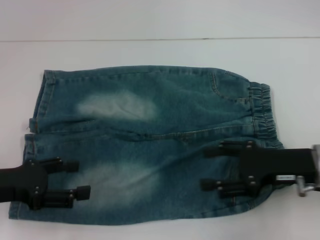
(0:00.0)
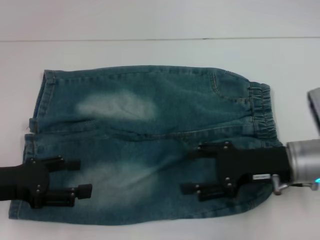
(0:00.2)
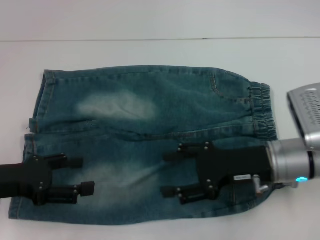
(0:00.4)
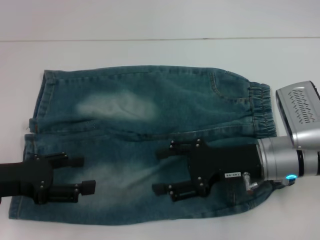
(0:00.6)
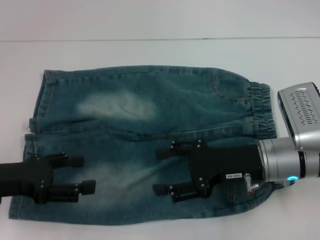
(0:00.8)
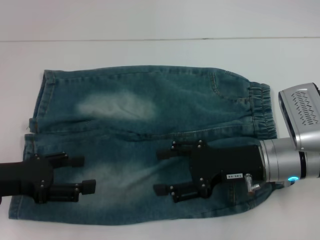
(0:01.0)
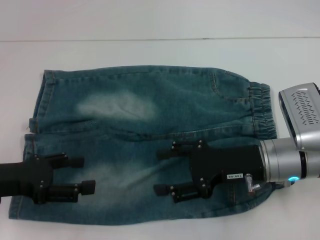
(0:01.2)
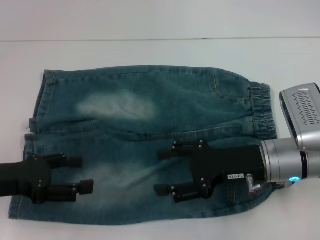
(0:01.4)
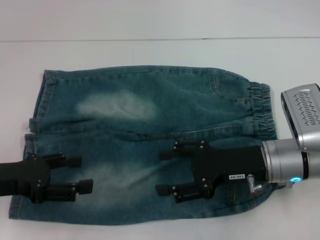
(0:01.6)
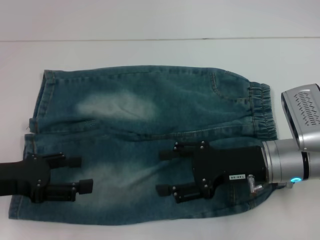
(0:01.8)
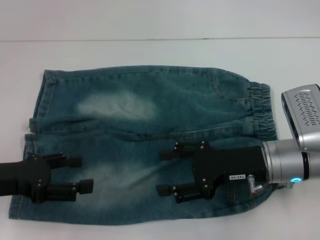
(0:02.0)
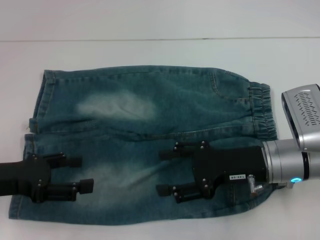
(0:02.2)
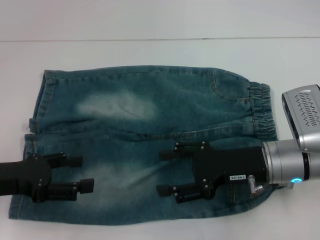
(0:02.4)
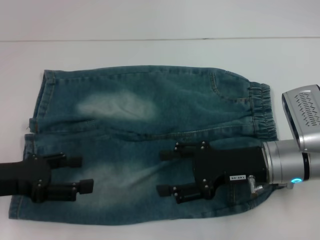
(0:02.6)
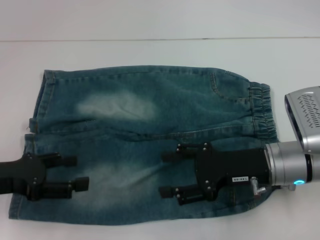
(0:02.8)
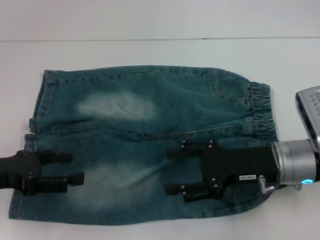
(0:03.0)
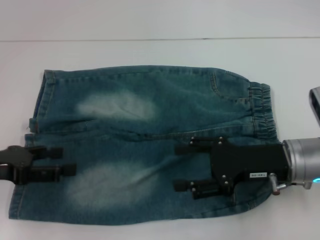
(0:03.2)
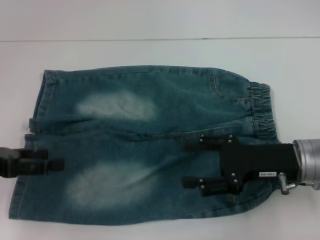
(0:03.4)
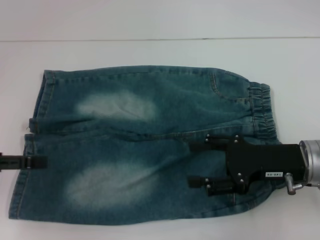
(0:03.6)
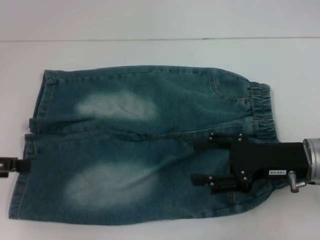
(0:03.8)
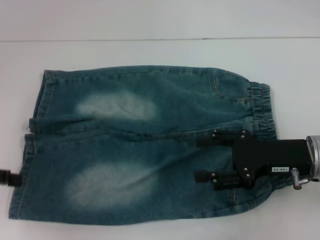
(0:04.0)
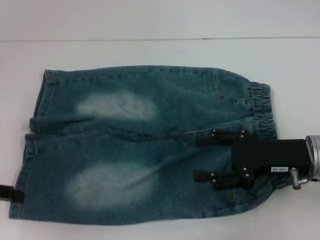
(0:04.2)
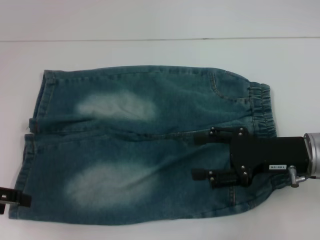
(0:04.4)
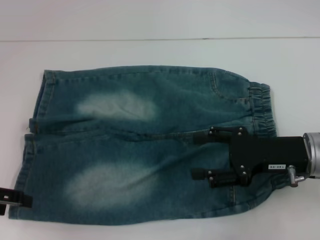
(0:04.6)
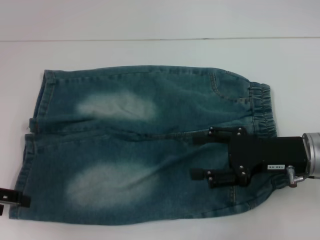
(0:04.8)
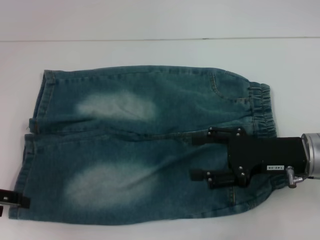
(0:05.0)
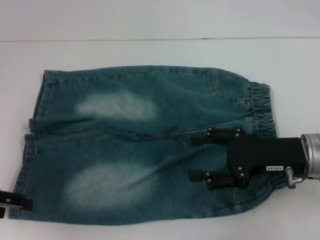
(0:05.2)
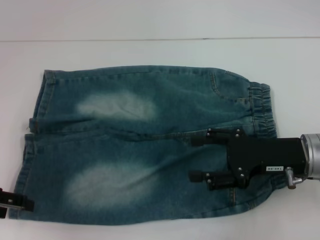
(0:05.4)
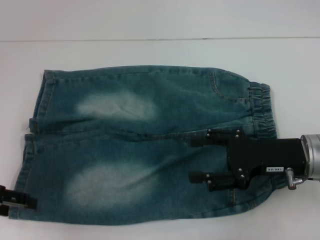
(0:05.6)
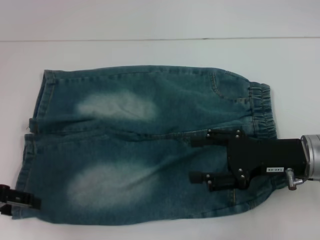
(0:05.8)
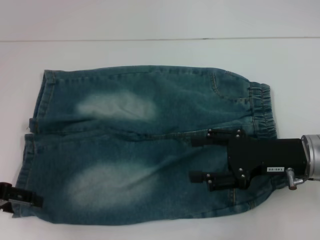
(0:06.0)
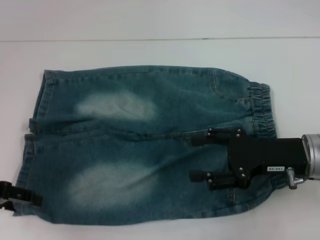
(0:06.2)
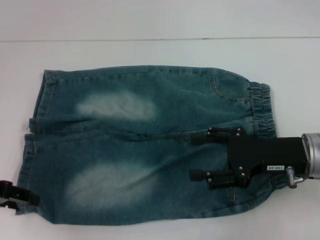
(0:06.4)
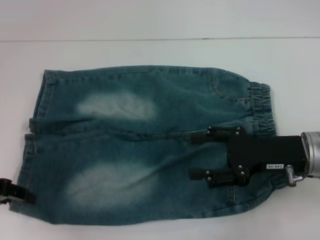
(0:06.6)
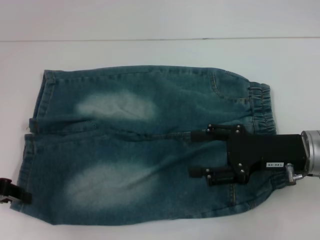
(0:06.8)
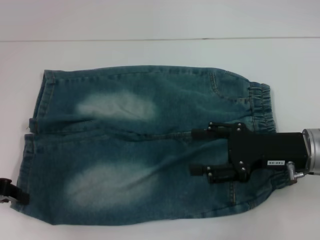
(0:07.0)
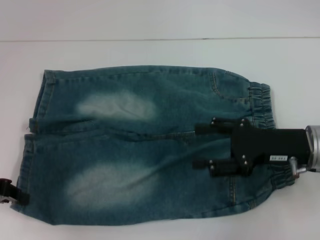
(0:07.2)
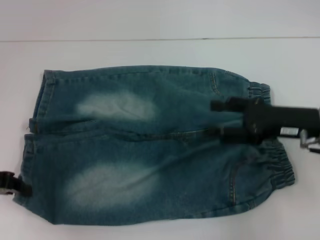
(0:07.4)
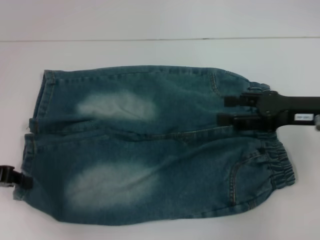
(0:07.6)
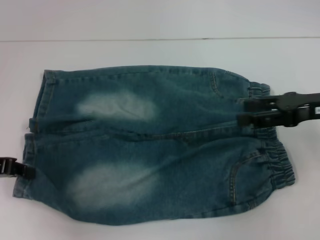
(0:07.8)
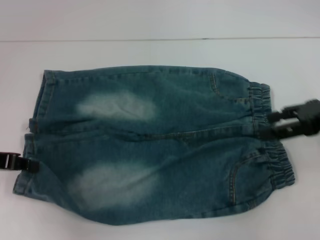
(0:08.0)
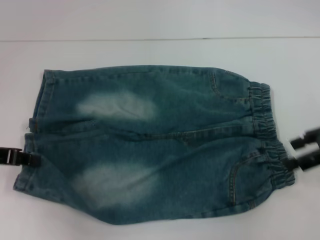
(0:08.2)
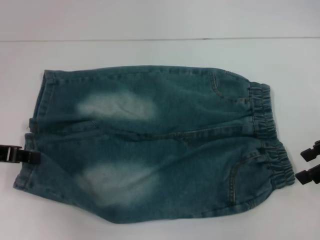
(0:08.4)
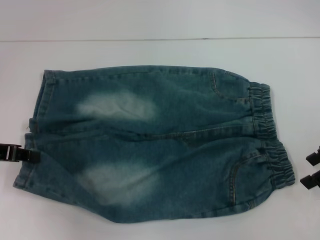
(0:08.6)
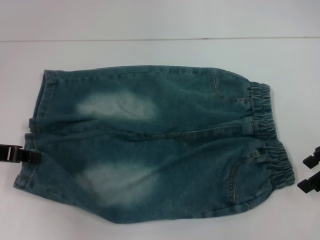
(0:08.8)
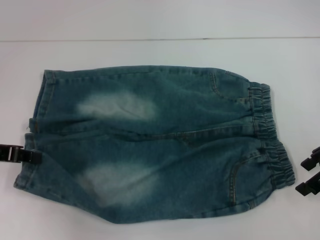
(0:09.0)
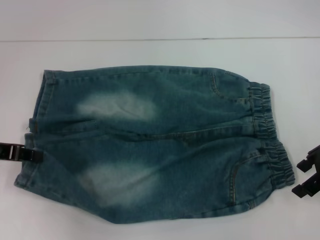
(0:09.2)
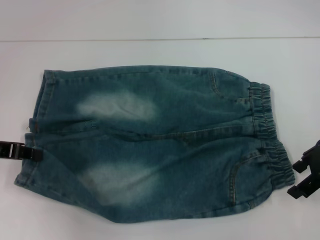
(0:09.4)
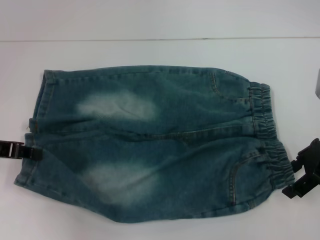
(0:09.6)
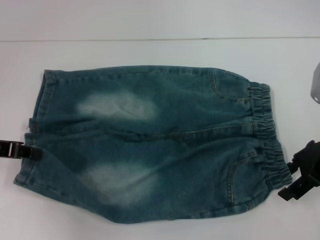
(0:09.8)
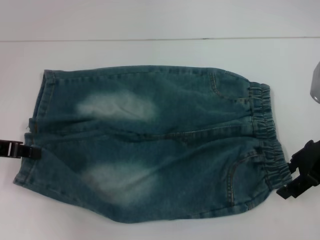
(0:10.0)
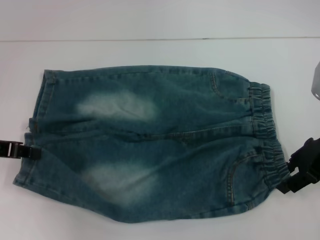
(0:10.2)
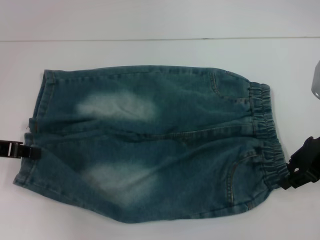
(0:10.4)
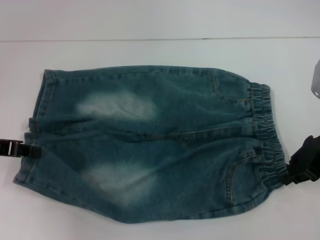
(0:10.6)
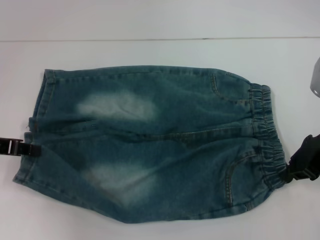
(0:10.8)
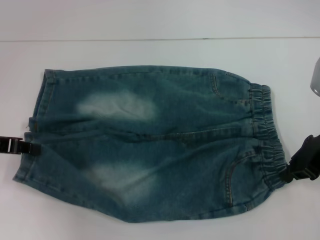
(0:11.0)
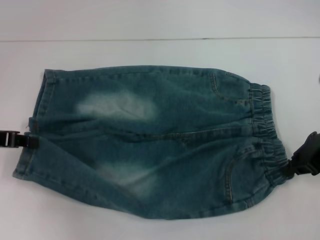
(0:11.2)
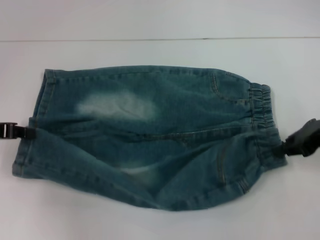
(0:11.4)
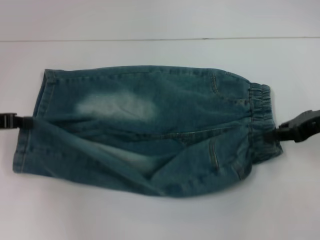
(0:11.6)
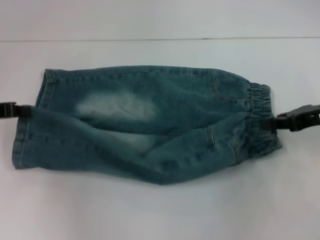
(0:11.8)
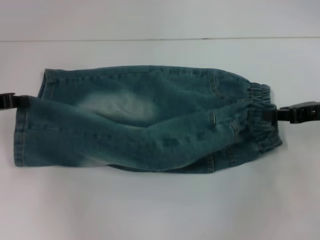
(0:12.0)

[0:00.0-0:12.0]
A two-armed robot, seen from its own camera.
Step, 0:00.0 to 0:07.0: Grab the lower left pant leg with your left hand.
Step, 0:07.2 to 0:10.8: Hold the lower right waistband with your right hand.
0:00.0 to 0:01.6: The right gripper moves to the left, some 5 cm.
0:01.6 to 0:03.0: Both grippers stay put.
0:03.0 to 0:04.4: The left gripper changes place by approximately 5 cm.
0:04.4 to 0:06.0: The grippers stay close to where they were, moving slightly.
0:06.0 to 0:07.6: The left gripper closes its fingers; the right gripper changes place by about 5 cm.
0:09.0 to 0:10.4: The grippers move only a little.
0:10.4 to 0:12.0: The right gripper changes place by about 5 cm, and closes.

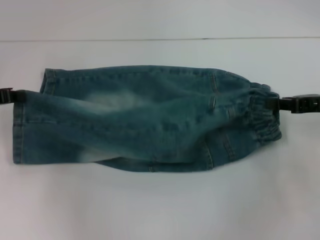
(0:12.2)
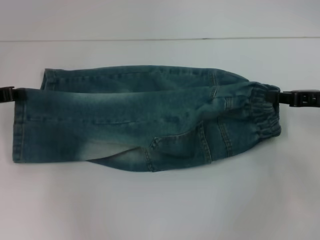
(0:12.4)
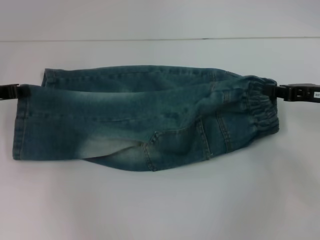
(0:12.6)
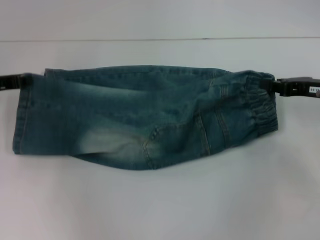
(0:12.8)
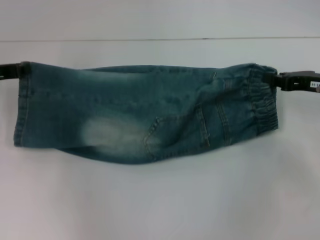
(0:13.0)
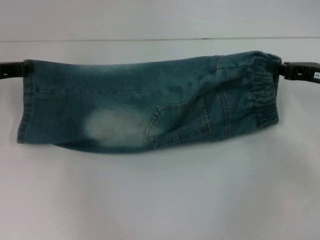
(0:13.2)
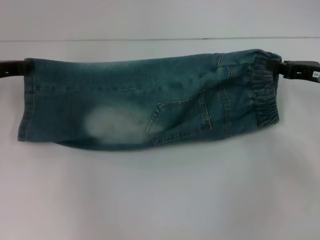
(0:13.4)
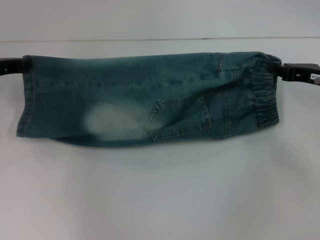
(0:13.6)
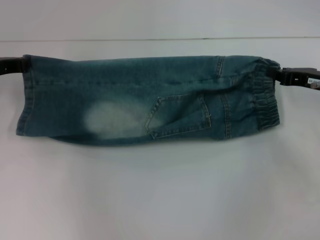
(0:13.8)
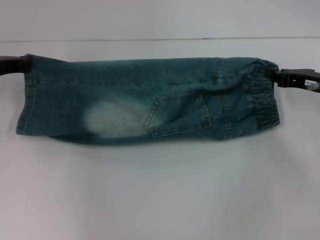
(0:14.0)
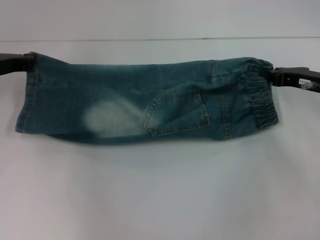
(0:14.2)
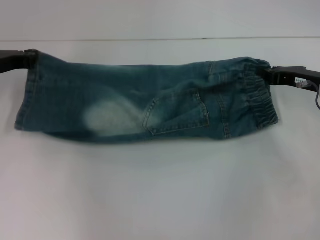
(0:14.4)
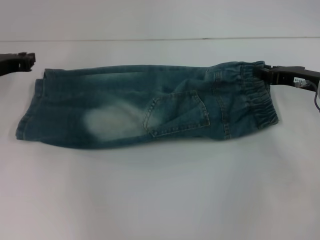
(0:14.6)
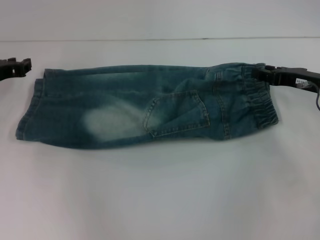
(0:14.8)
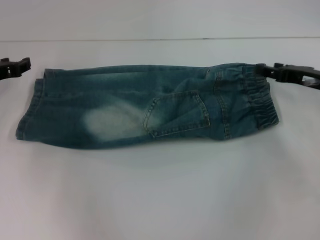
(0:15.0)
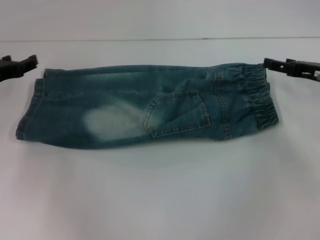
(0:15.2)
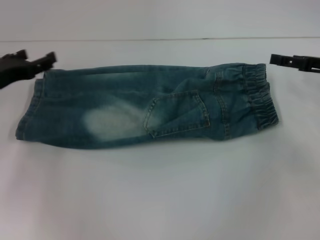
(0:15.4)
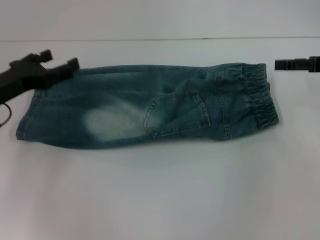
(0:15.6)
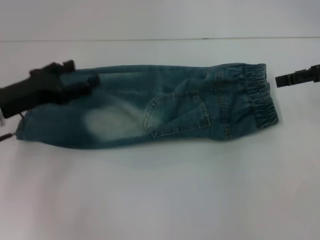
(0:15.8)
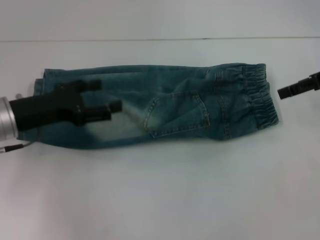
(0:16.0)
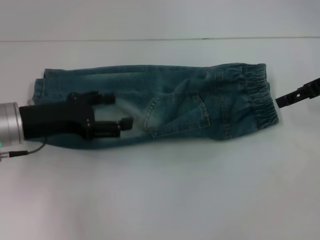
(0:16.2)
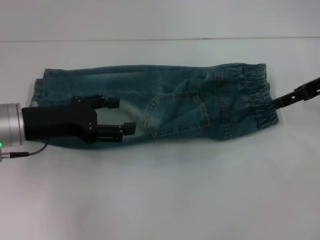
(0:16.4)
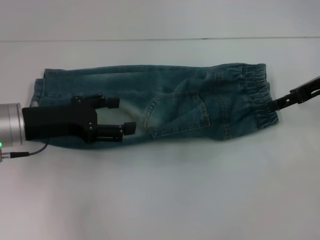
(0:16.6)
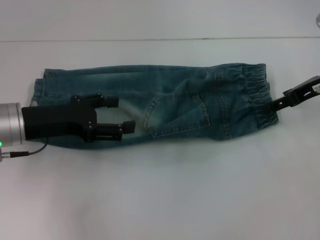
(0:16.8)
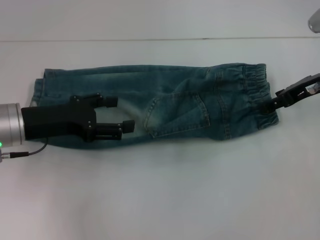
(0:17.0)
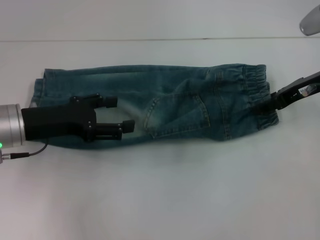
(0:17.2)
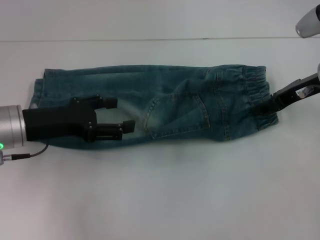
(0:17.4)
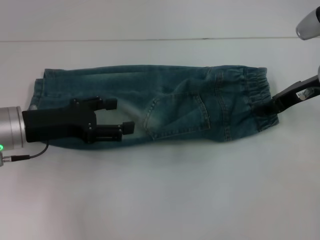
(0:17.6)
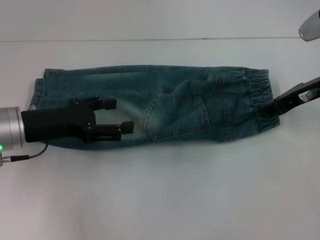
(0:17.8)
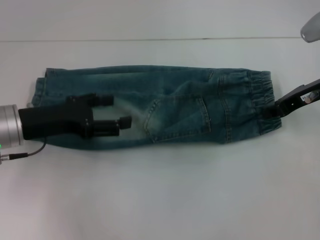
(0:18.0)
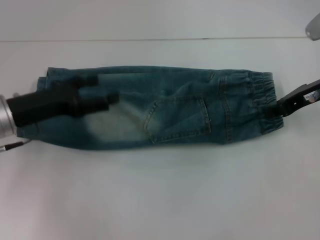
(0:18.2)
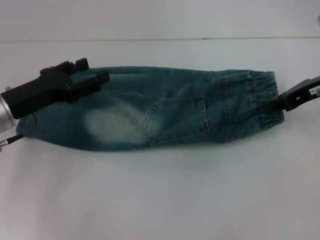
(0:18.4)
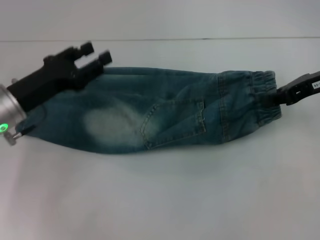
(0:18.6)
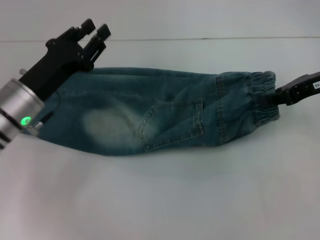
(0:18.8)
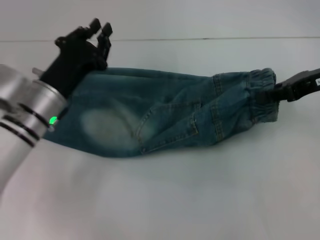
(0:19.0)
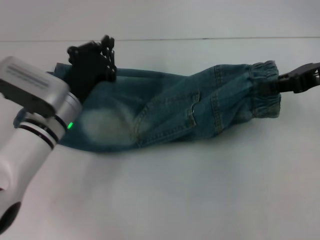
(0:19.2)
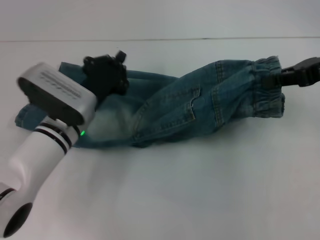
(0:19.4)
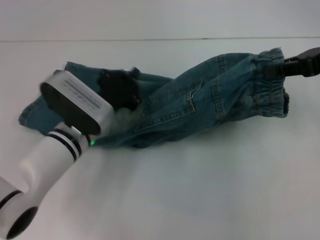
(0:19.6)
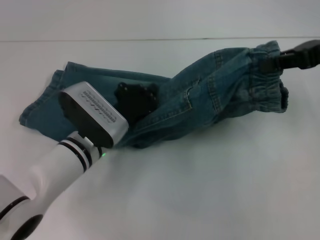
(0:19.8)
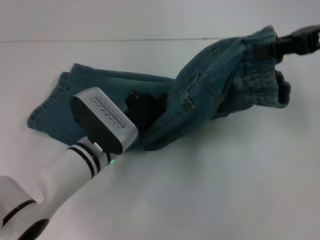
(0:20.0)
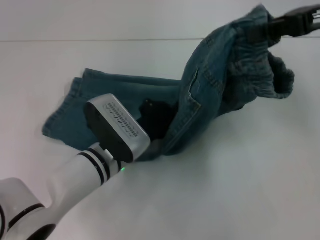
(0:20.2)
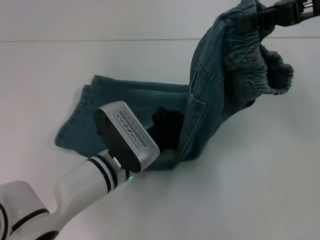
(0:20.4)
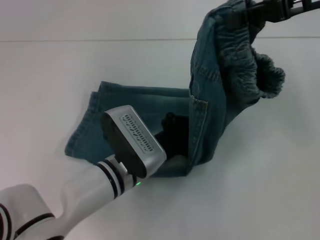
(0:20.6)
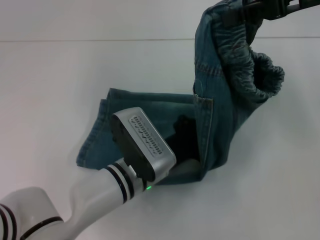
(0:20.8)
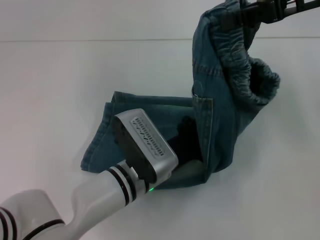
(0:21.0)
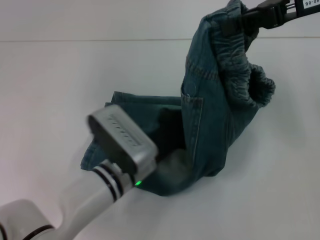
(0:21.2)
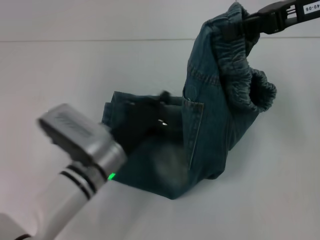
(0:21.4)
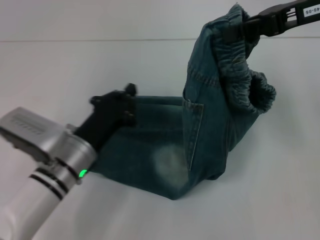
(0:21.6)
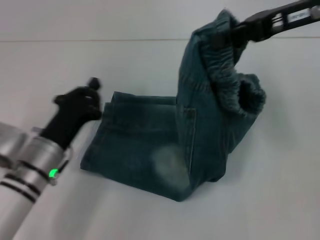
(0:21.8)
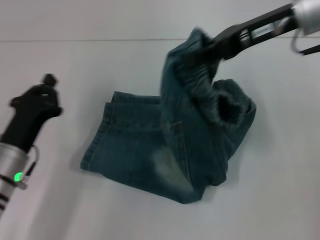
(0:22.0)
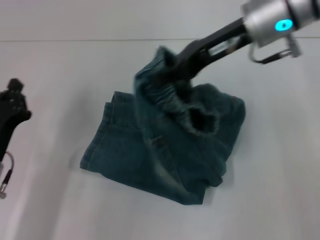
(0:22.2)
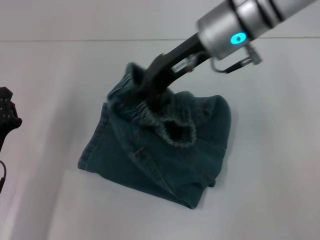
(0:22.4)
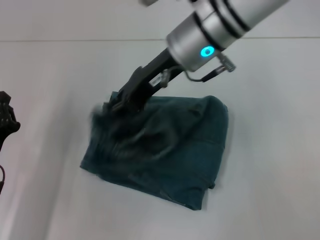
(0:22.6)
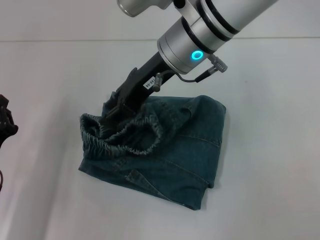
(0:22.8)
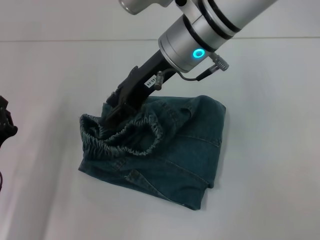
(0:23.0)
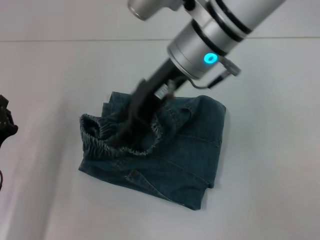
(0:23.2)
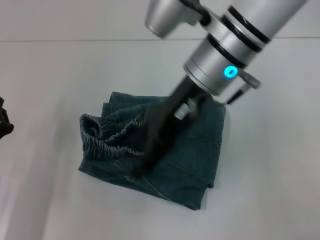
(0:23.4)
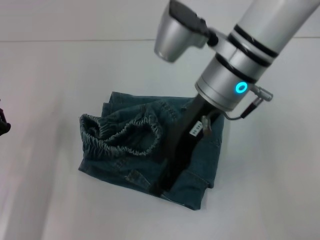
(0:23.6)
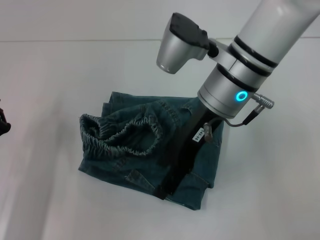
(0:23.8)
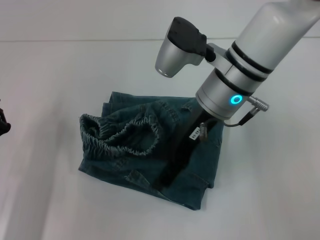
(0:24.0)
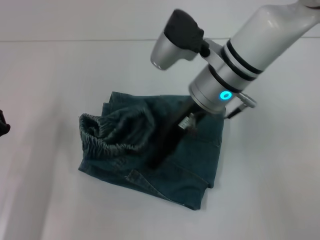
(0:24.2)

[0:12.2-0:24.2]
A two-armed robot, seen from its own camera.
Step, 0:12.2 to 0:14.4: Fold upward with your left hand.
Step, 0:14.8 to 0:17.8: Grab the waistband with your right hand.
Step, 0:18.0 to 0:21.0: Press the middle of the pants with your left hand.
Step, 0:21.2 to 0:22.8: Fold to the left with your right hand.
0:12.2 to 0:13.8: The left gripper moves roughly 5 cm.
0:13.8 to 0:15.2: The left gripper opens up. The right gripper opens its fingers.
0:15.2 to 0:16.6: The left gripper travels to the right and backward by about 10 cm, and opens its fingers; the right gripper travels upward by about 5 cm.
0:16.6 to 0:18.2: The right gripper closes.
0:18.2 to 0:19.8: The left gripper heads to the right and downward, covering about 15 cm, and closes up; the right gripper travels upward by roughly 10 cm.
0:19.8 to 0:21.2: The left gripper travels to the right by approximately 5 cm. The right gripper is displaced to the left by approximately 5 cm.
0:21.2 to 0:22.6: The two grippers go approximately 20 cm to the left.
0:22.6 to 0:24.2: The right gripper is displaced downward by approximately 5 cm, and opens.
